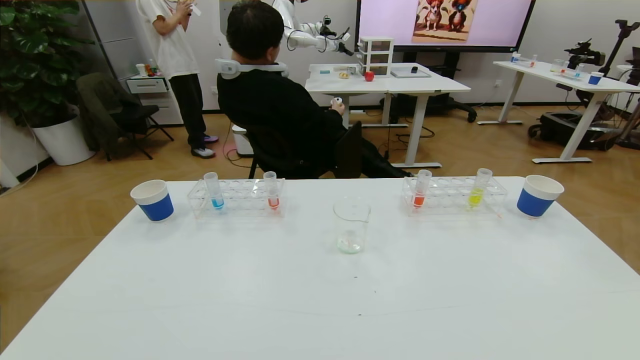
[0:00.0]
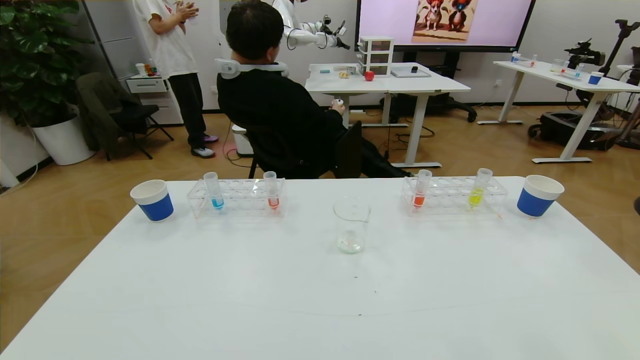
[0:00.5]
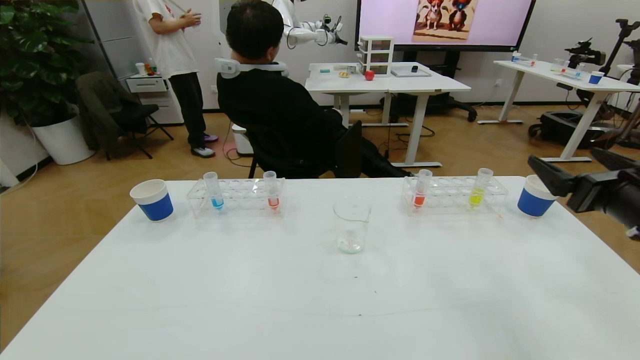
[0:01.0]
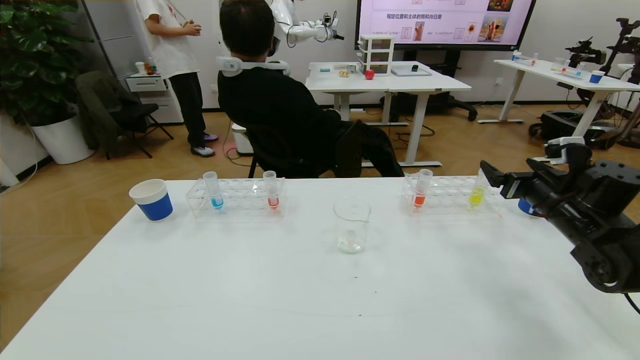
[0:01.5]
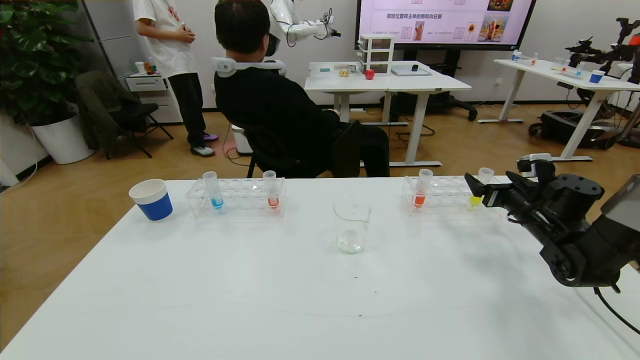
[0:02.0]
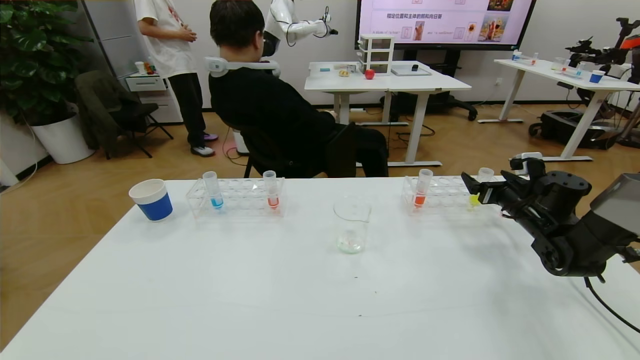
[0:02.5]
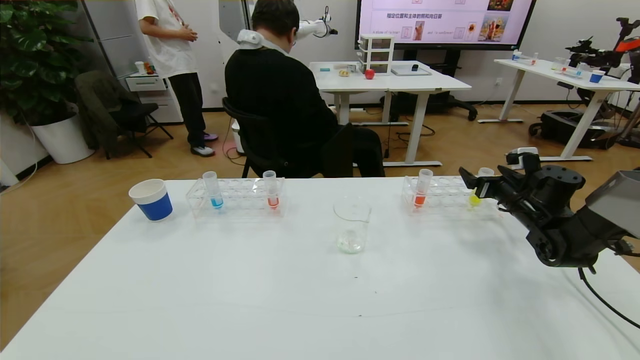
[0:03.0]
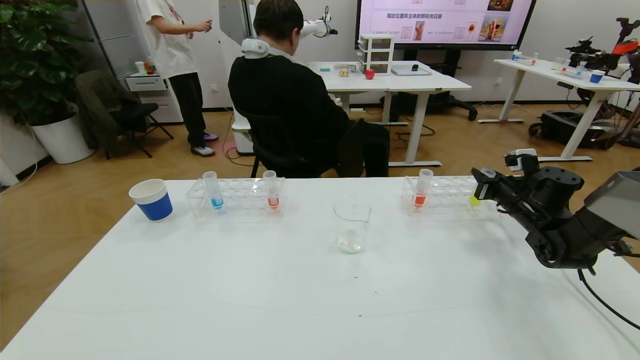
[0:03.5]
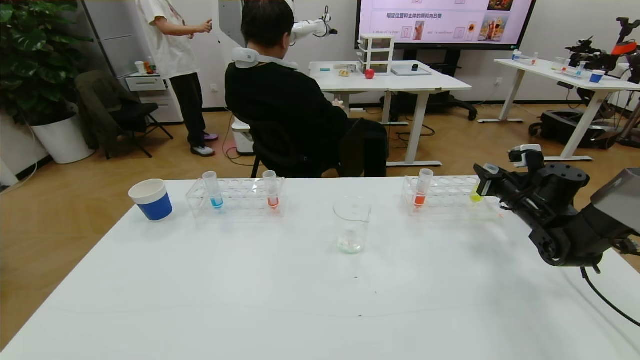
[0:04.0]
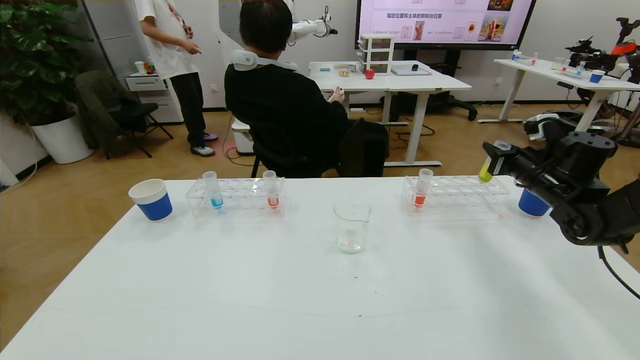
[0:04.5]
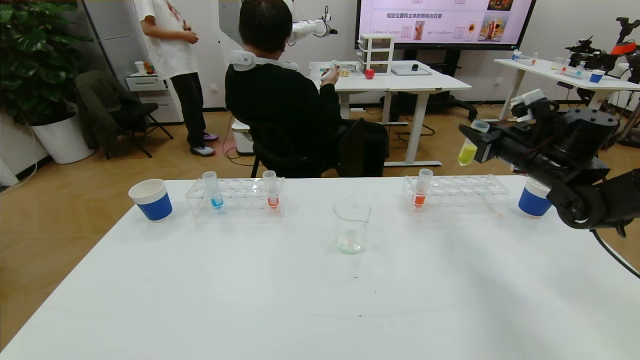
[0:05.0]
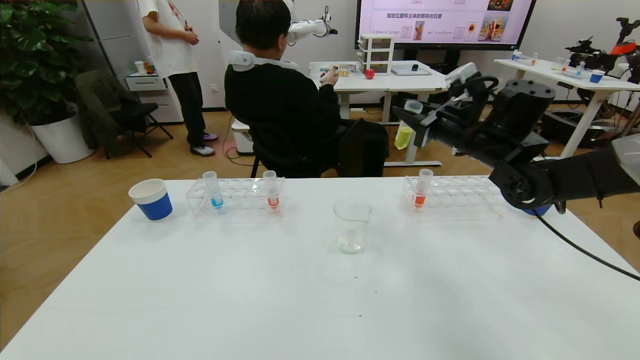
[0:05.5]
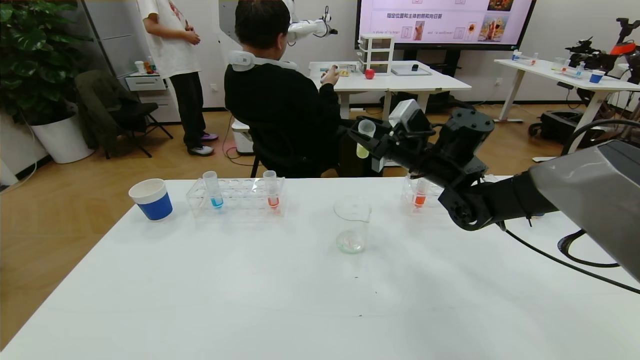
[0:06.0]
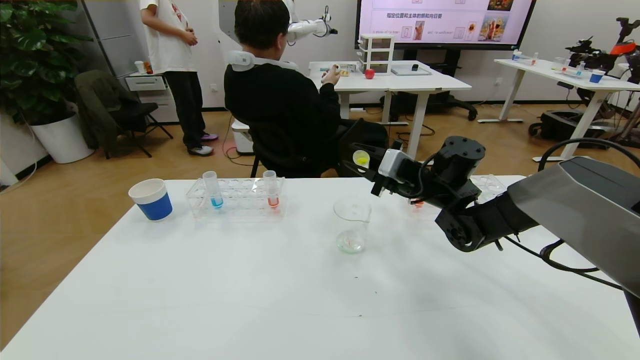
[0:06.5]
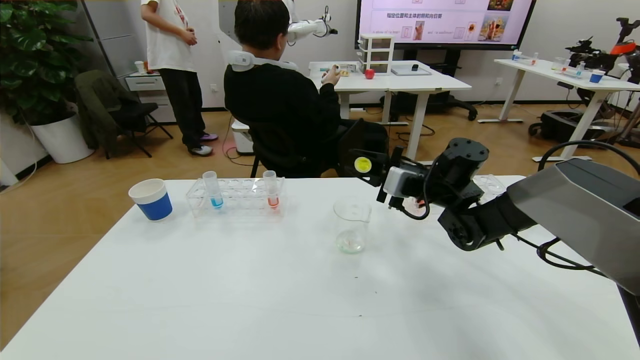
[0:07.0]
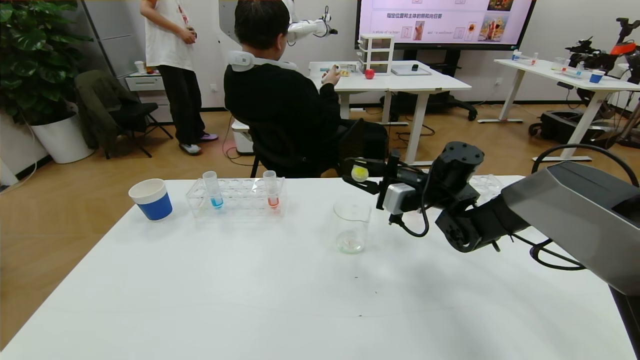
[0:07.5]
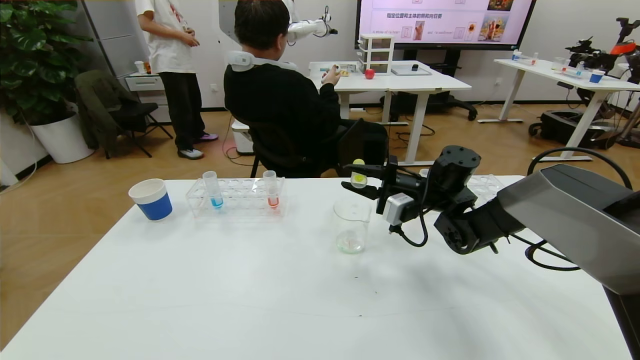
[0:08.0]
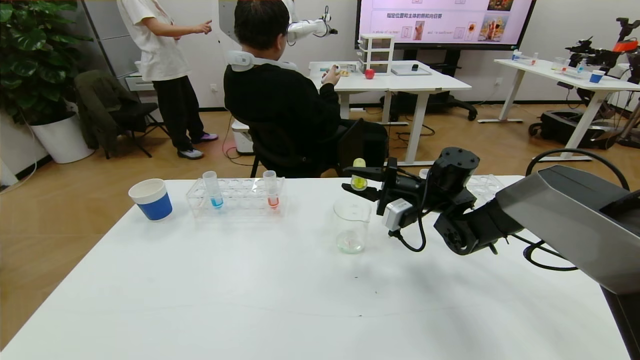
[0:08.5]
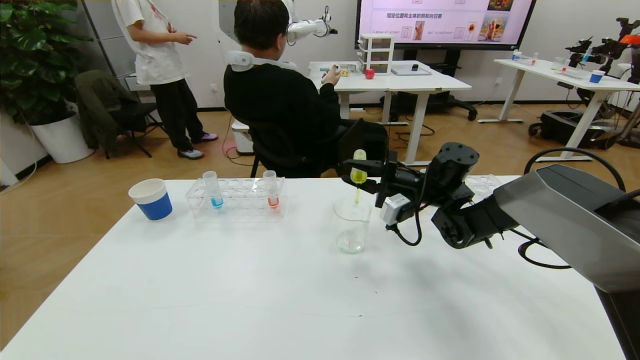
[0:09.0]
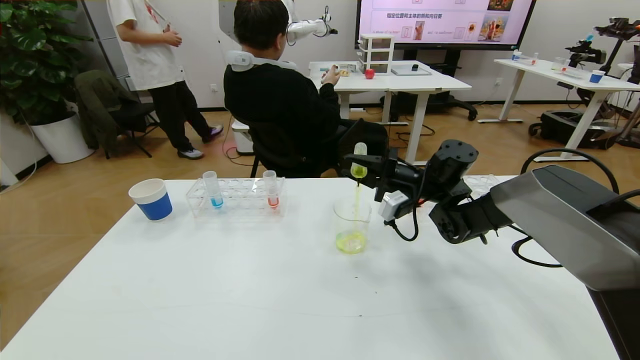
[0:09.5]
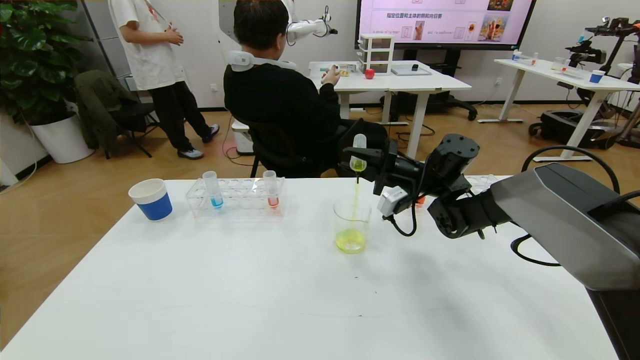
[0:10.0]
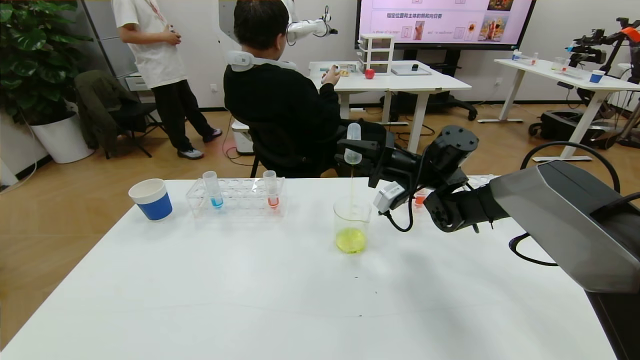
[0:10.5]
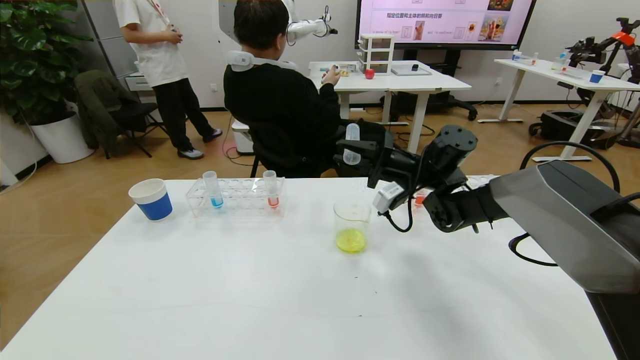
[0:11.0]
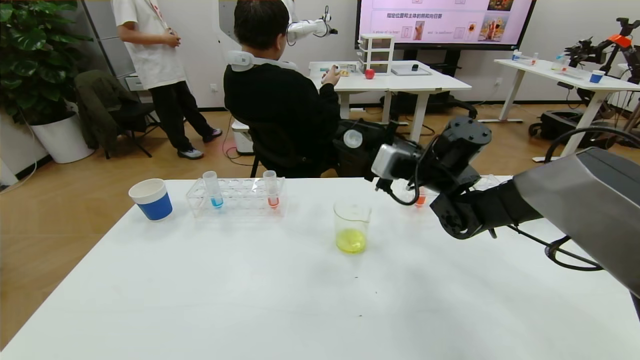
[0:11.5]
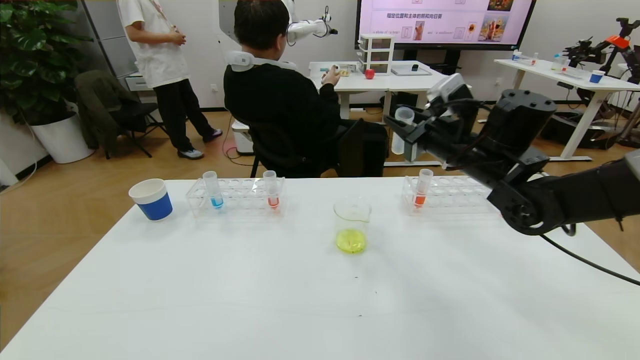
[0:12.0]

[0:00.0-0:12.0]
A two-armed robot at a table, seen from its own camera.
Task of the whole recording: pick up the test tube with yellow pigment and the test tube with blue pigment by grippers and pour them into the beaker.
Step, 0:00.0 to 0:03.0: Grasp the yellow reagent with the right gripper.
Step, 0:03.5 to 0:11.5: Pour the yellow reagent into the graduated cylinder with the right gripper.
0:00.0 to 0:02.0: The right gripper shifts some 40 cm forward.
0:02.0 to 0:04.0: The right gripper closes its fingers.
0:04.0 to 0:06.0: The right gripper travels to the left and upward by approximately 25 cm.
0:06.0 to 0:08.0: The right gripper heads downward, covering about 5 cm.
0:08.0 to 0:10.0: The grippers move only a little.
0:10.0 to 0:12.0: The right gripper is displaced upward and backward by approximately 10 cm.

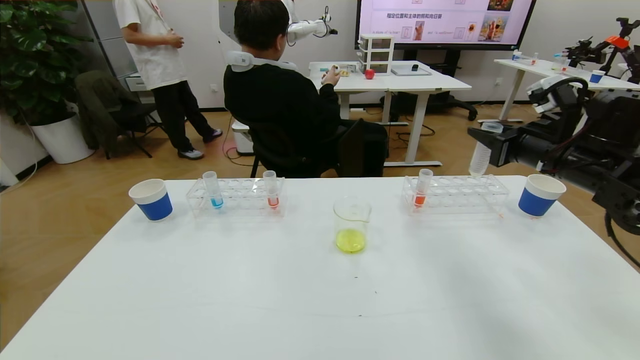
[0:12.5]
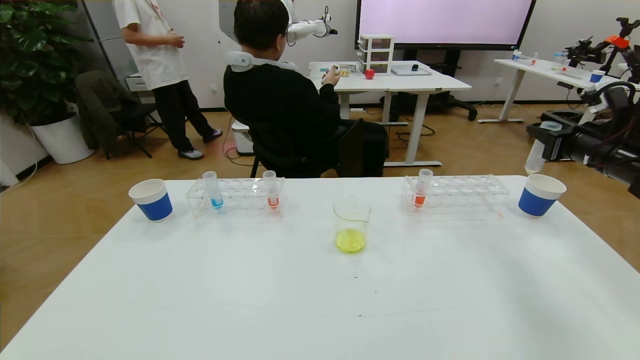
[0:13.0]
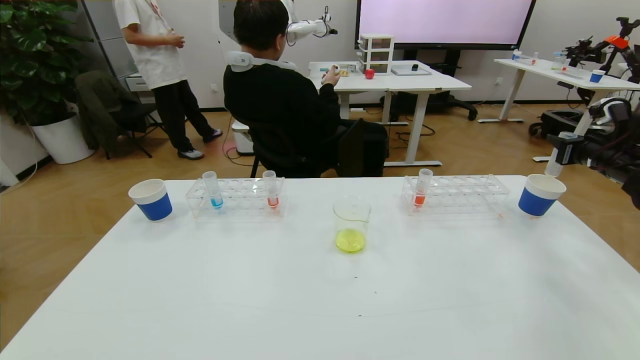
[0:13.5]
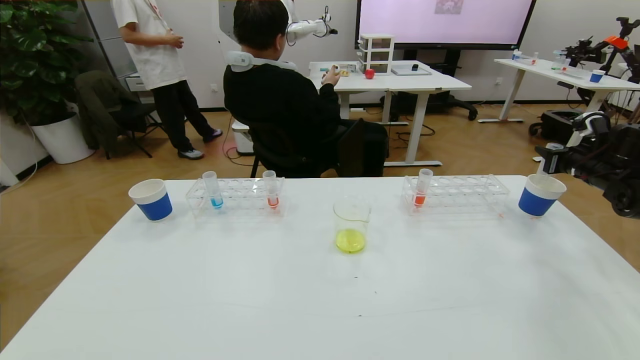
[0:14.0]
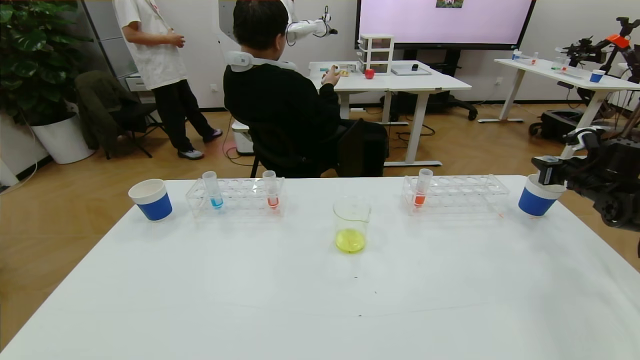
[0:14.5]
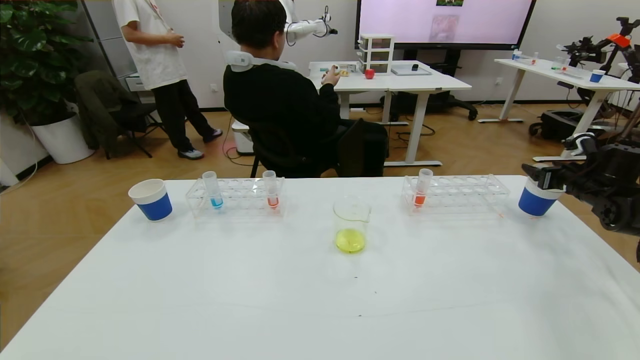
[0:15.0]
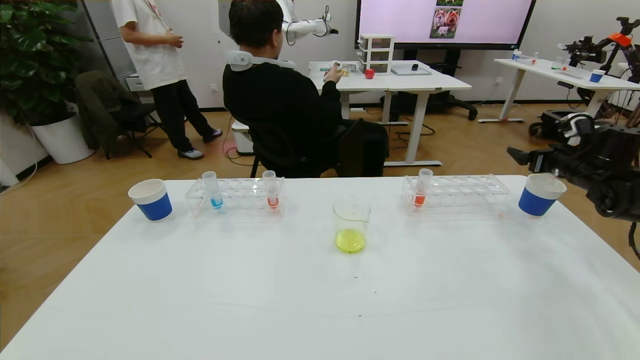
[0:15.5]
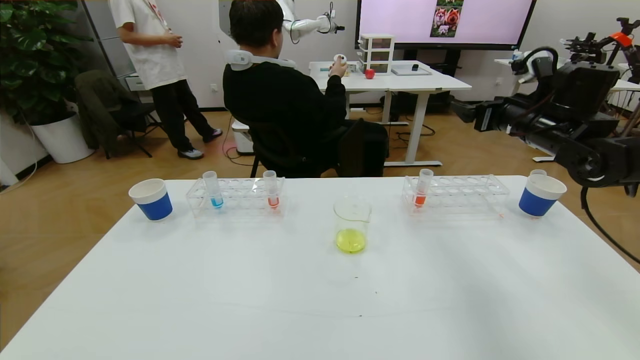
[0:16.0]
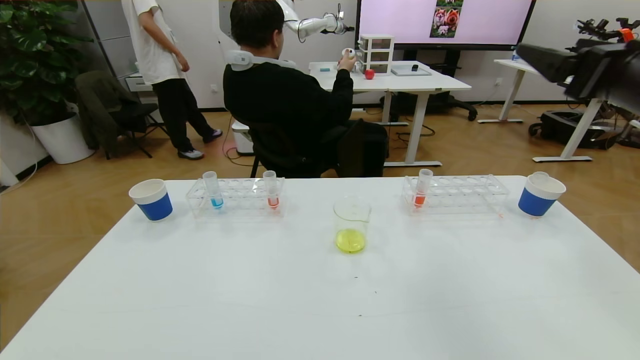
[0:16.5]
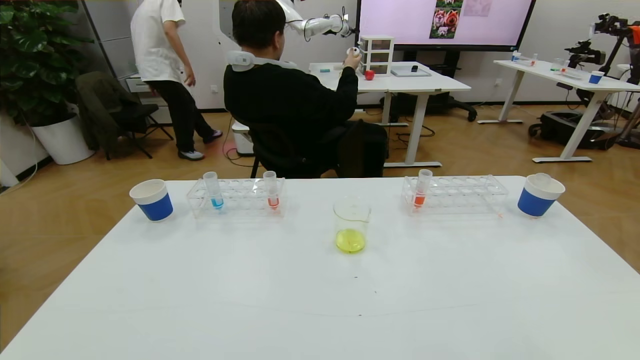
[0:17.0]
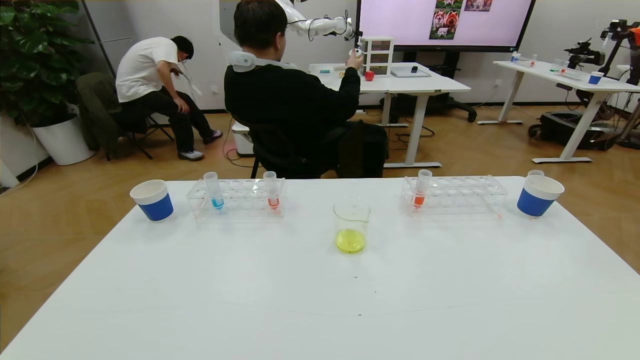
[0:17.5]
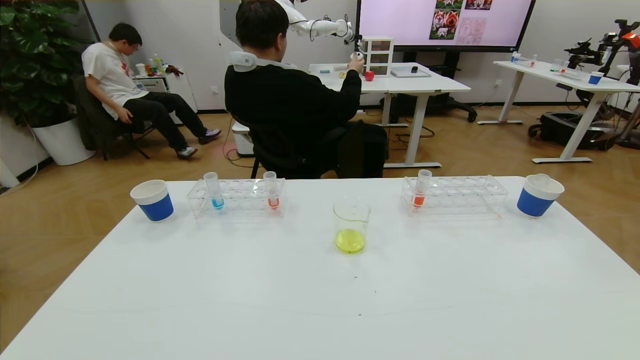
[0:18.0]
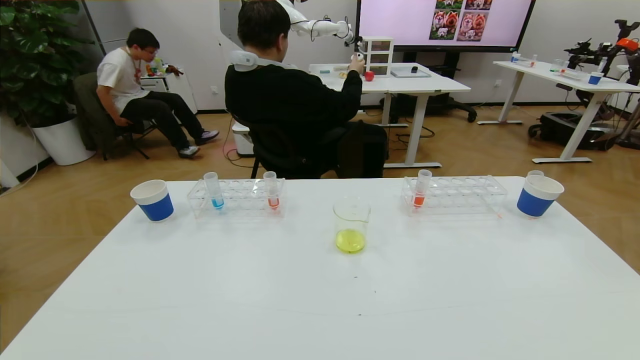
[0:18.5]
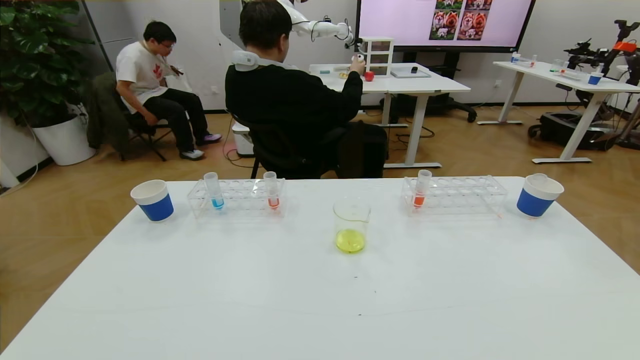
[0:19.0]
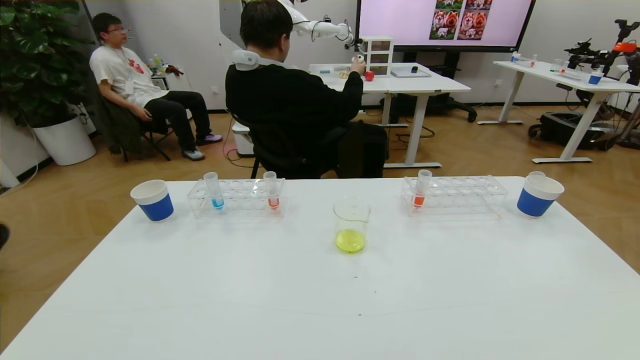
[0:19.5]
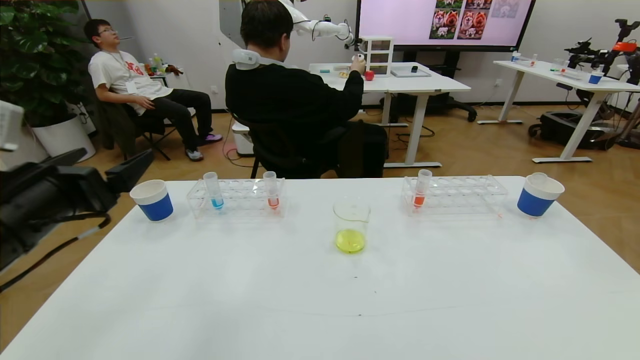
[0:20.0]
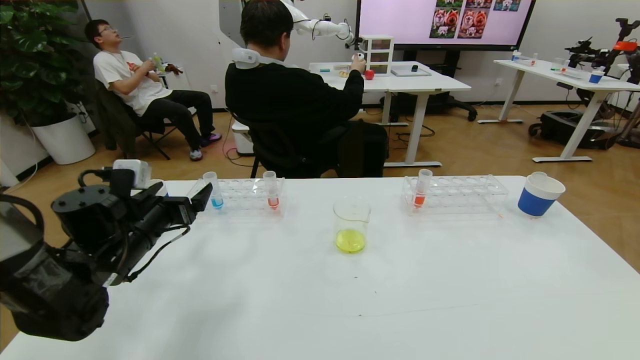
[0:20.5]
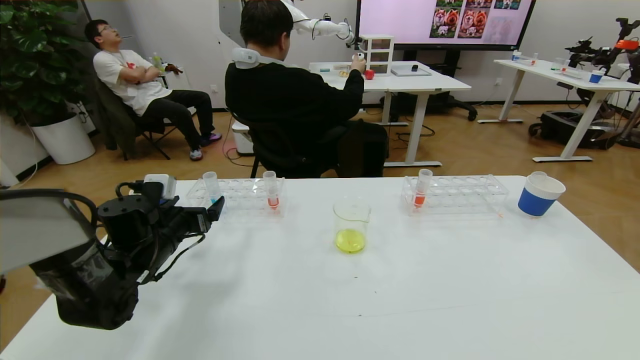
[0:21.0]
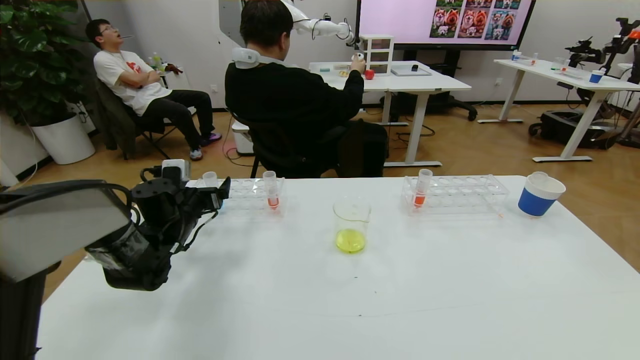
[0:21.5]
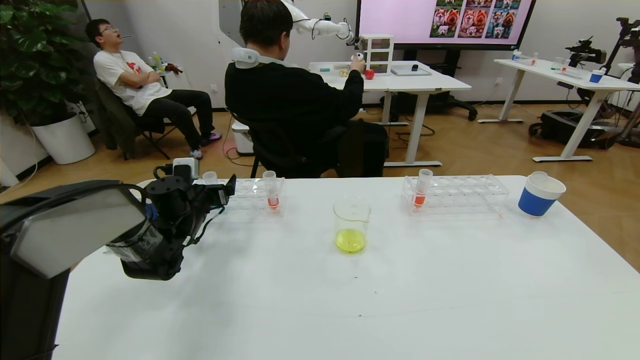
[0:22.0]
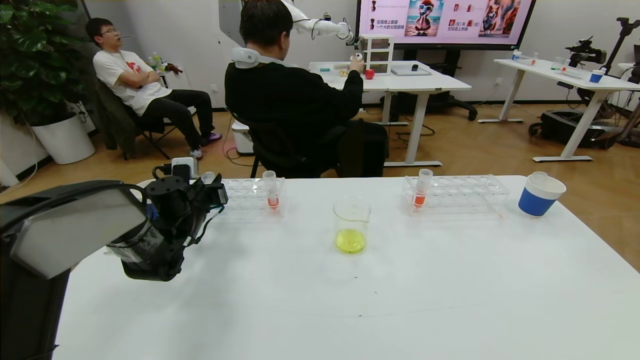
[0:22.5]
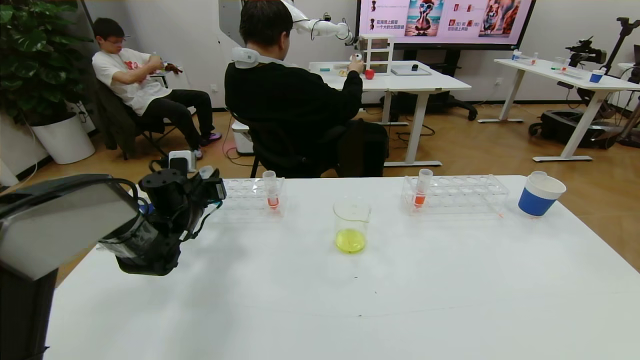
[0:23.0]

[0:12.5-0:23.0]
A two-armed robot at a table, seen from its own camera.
Task of the whole recording: pick up the test tube with yellow pigment and the test tube with blue pigment by grippers and pour them into the beaker.
Step, 0:12.5 to 0:15.5: Place the test tube into the paper cup with the right gripper.
Step, 0:16.0 to 0:22.0: Grasp the blue reagent with the left gripper.
0:12.5 to 0:14.5: The right gripper moves to the right, downward and forward, roughly 25 cm.
0:14.5 to 0:16.5: The right gripper heads upward, to the left and backward, covering roughly 35 cm, and opens its fingers.
0:16.5 to 0:19.0: The right gripper shifts about 35 cm downward and backward.
0:19.0 to 0:21.0: The left gripper is displaced forward by about 35 cm.
0:21.0 to 0:23.0: The left gripper travels forward by roughly 10 cm, and closes.
